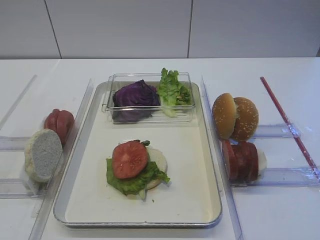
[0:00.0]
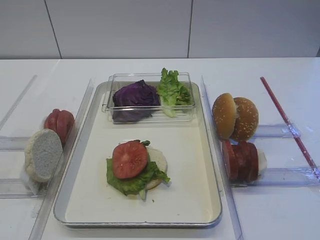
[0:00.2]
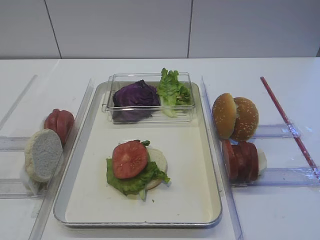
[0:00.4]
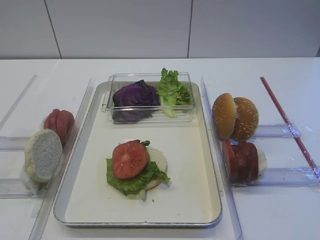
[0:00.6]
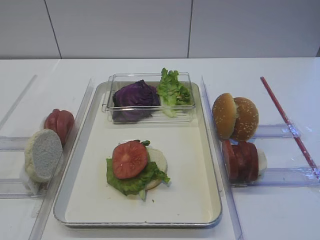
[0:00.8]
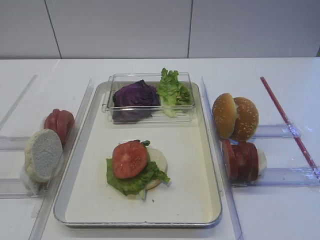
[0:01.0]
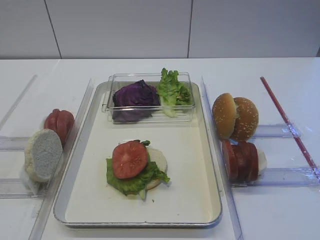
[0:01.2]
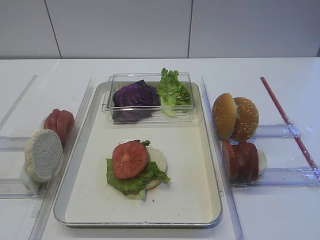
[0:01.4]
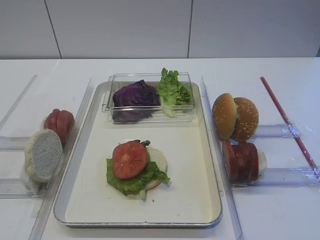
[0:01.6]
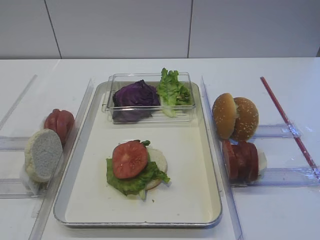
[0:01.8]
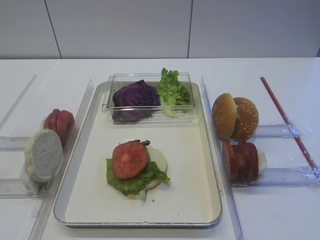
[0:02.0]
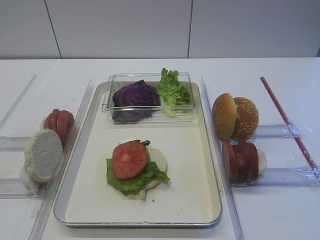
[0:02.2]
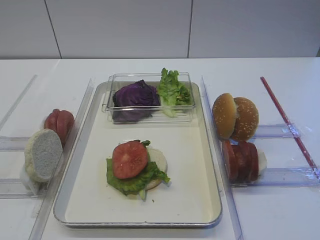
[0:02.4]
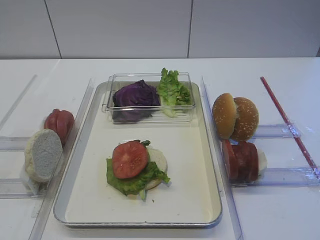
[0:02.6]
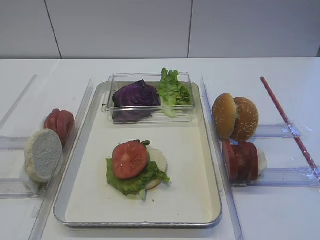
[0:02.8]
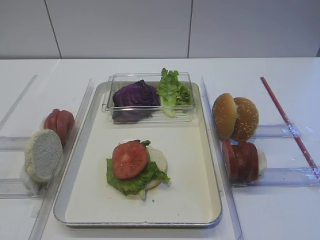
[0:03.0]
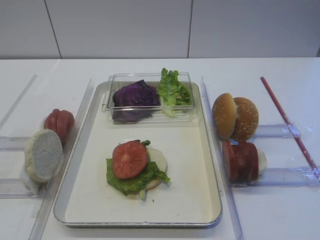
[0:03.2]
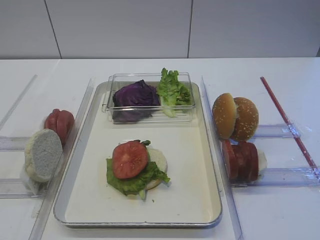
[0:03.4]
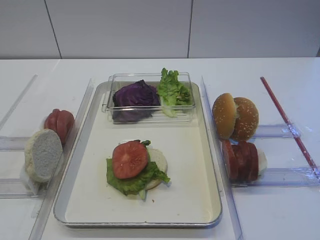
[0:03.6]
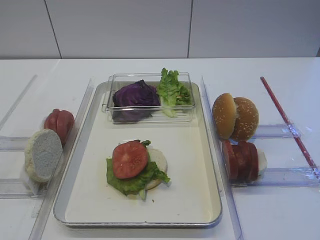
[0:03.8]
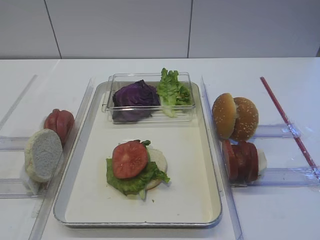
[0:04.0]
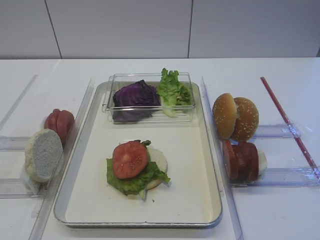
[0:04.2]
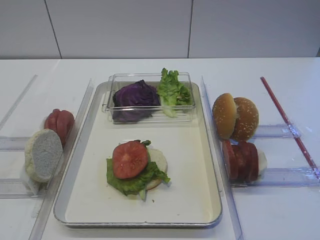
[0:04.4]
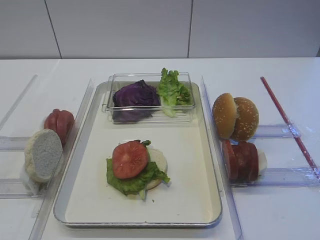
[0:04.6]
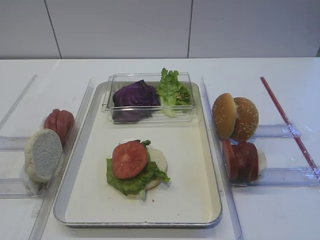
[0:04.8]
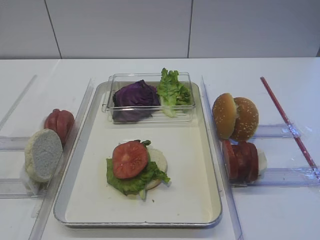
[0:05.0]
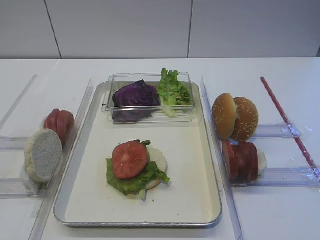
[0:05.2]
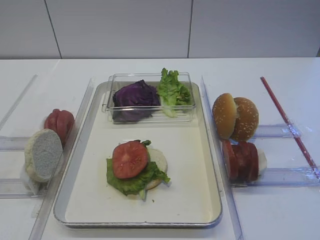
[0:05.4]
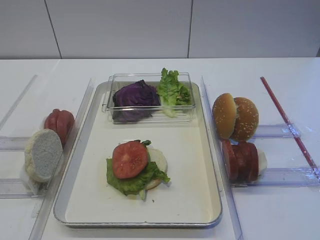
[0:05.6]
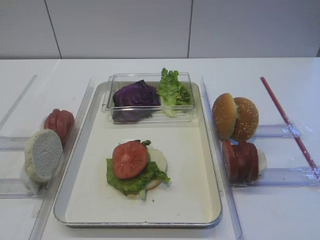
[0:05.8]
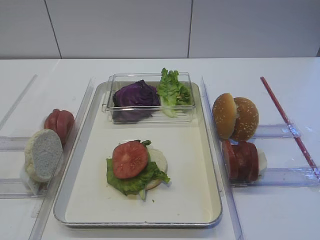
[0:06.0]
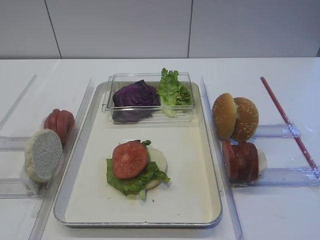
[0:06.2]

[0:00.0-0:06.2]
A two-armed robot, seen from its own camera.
0:00.0 to 0:03.2: Both grippers stay put.
0:03.2 to 0:06.2: Both grippers stay put.
